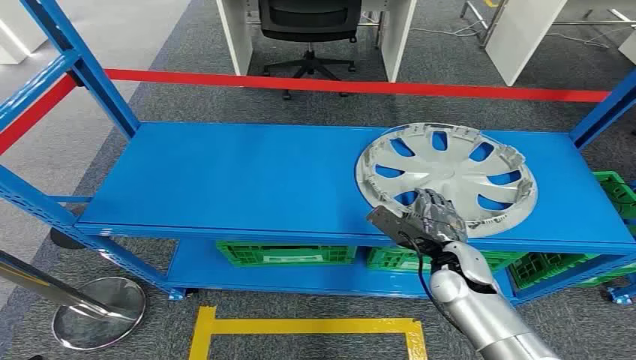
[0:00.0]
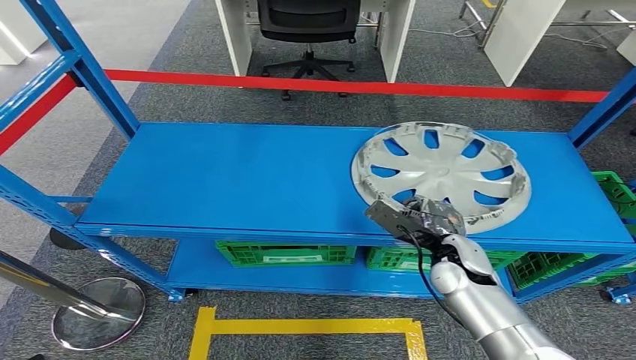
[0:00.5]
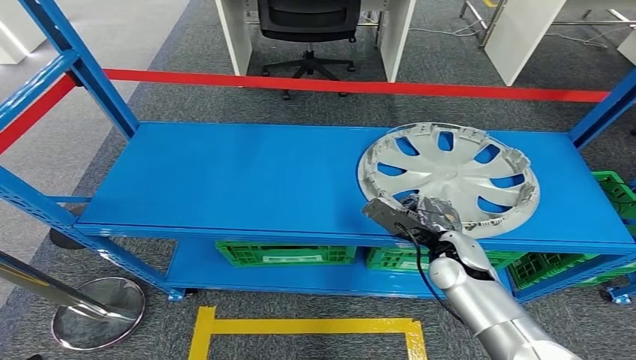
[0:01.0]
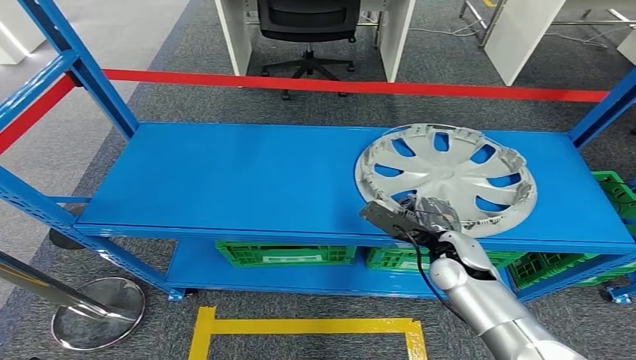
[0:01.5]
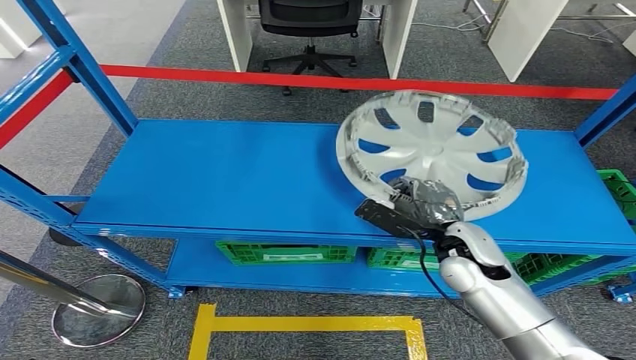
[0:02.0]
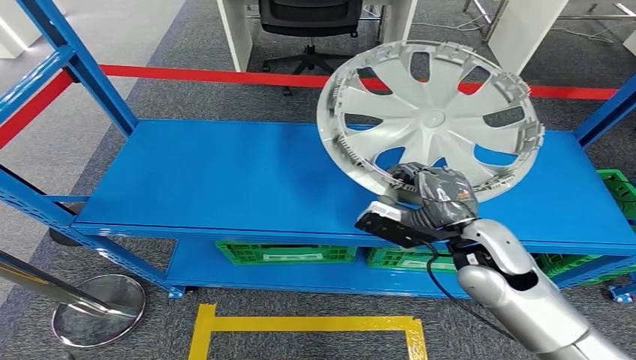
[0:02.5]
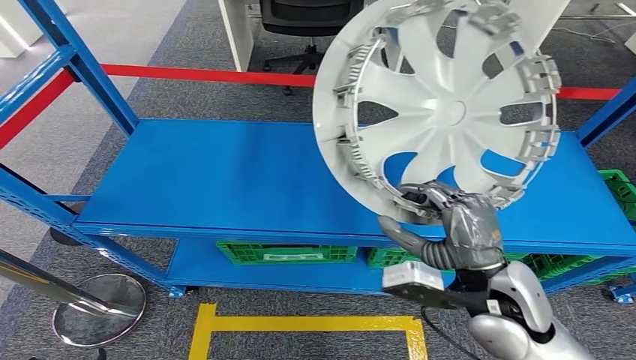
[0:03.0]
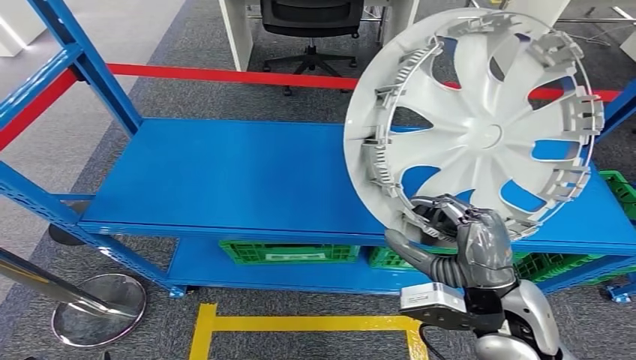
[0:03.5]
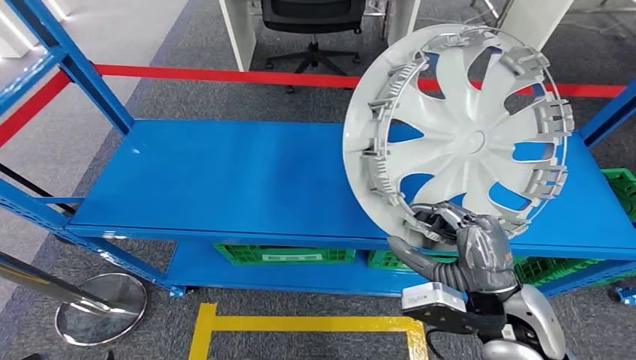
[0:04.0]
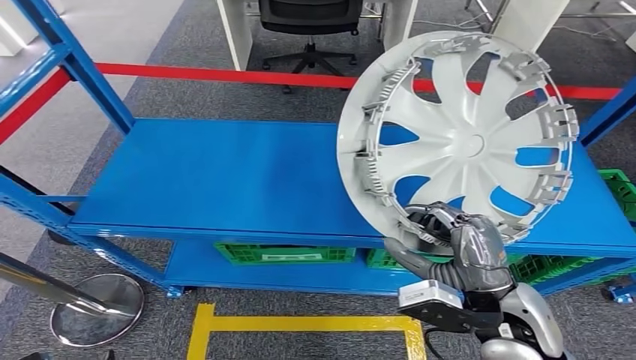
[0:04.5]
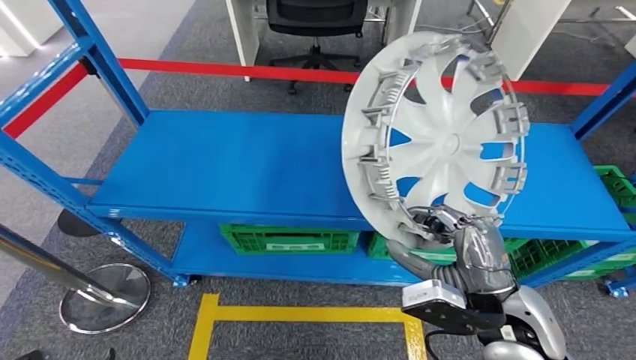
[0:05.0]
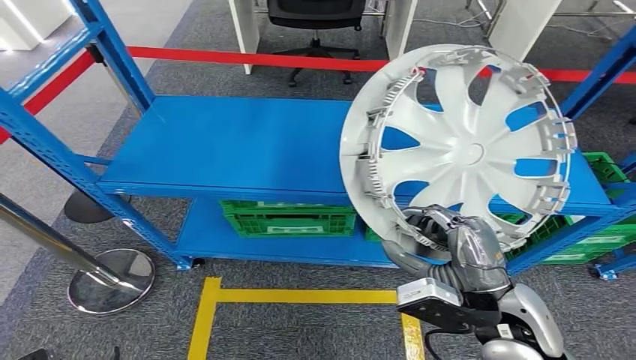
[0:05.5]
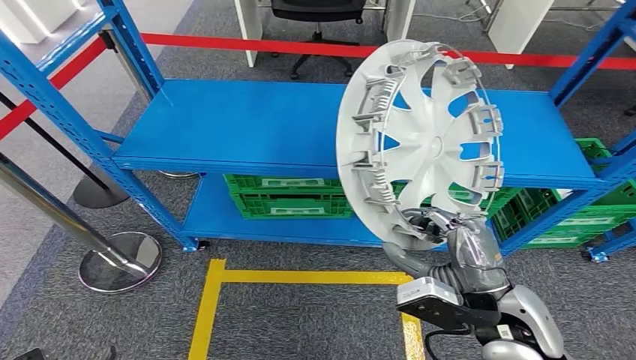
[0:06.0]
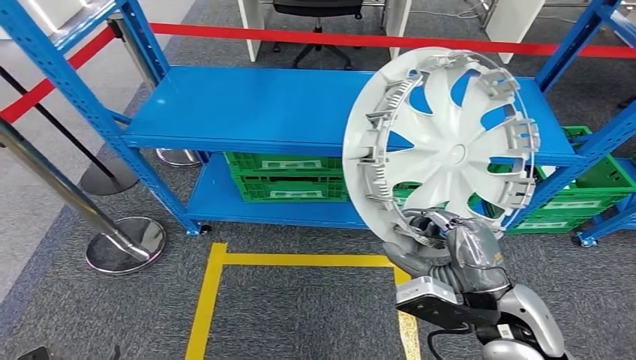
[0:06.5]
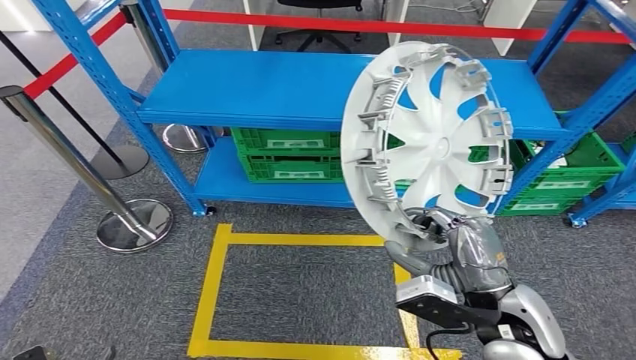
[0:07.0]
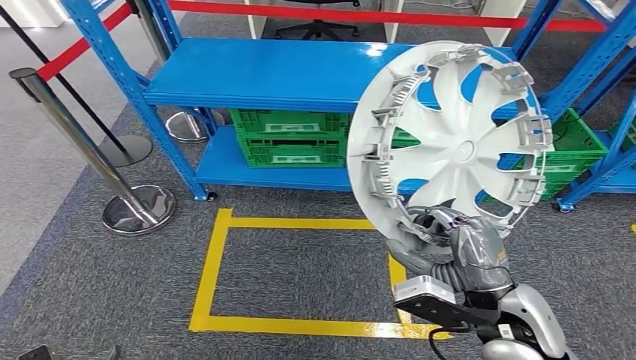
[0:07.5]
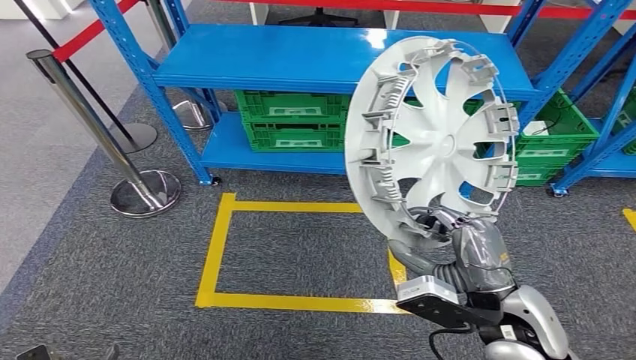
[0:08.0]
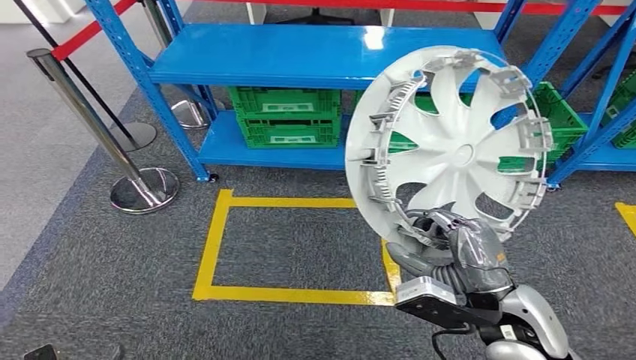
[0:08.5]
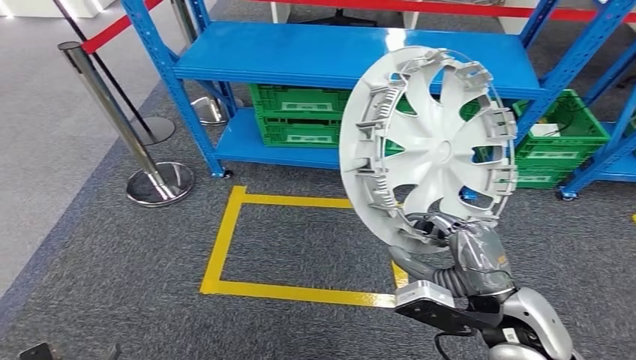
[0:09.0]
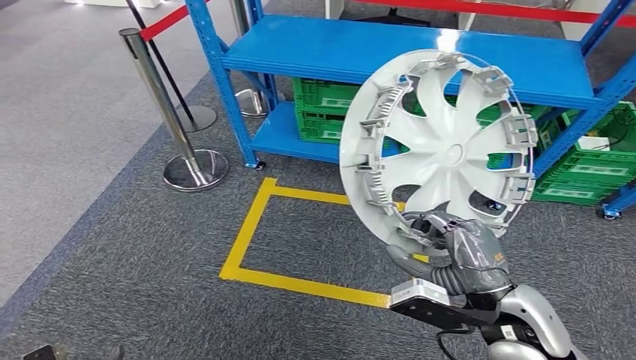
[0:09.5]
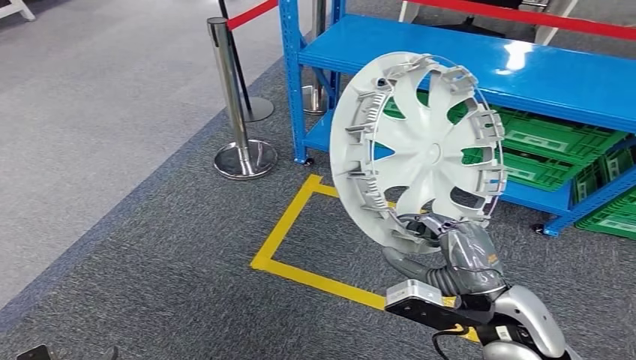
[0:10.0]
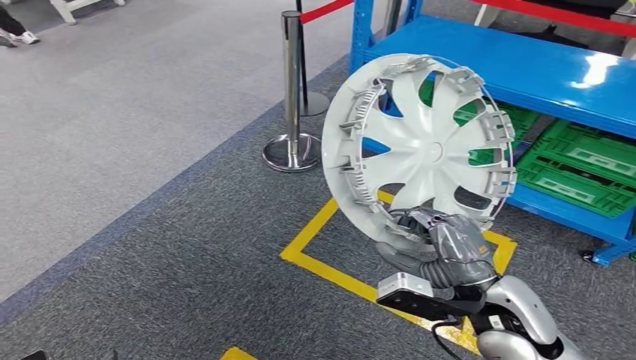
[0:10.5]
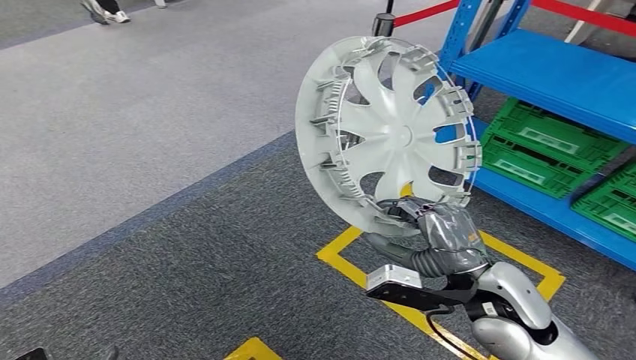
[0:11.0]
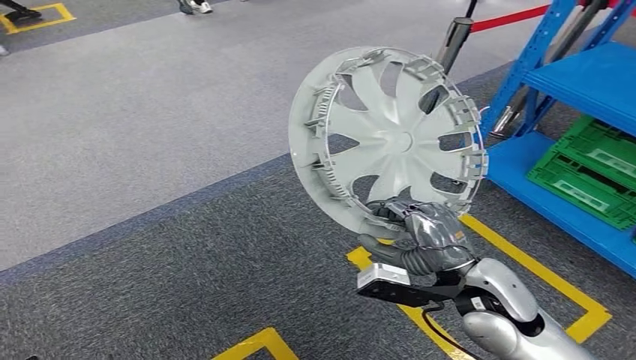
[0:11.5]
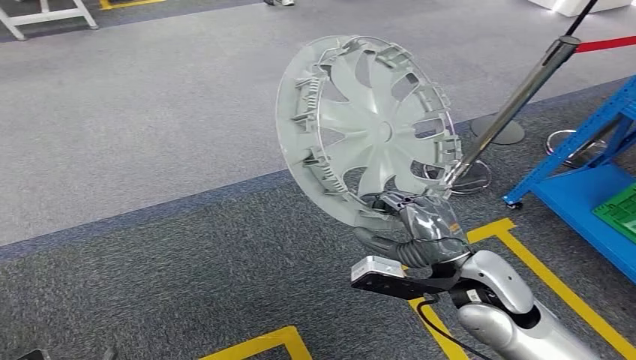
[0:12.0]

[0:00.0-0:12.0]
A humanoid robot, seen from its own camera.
Step, 0:00.0 to 0:03.0: Take small components from the rack.

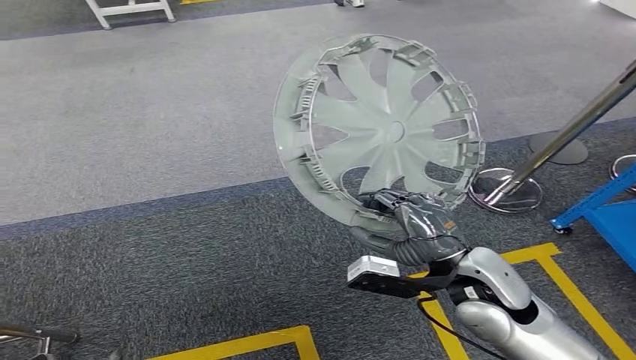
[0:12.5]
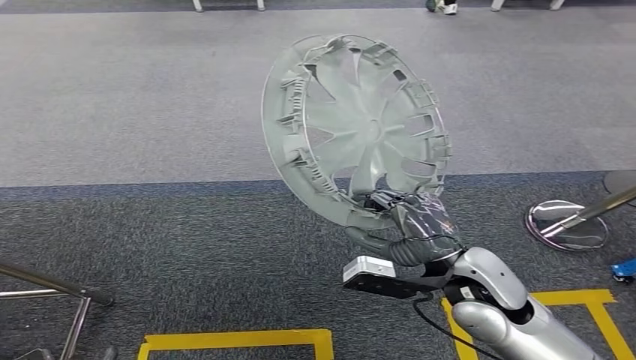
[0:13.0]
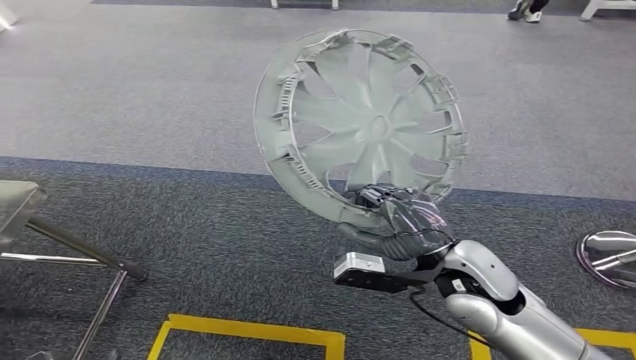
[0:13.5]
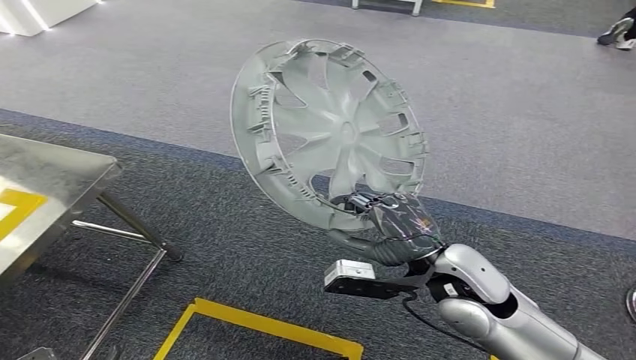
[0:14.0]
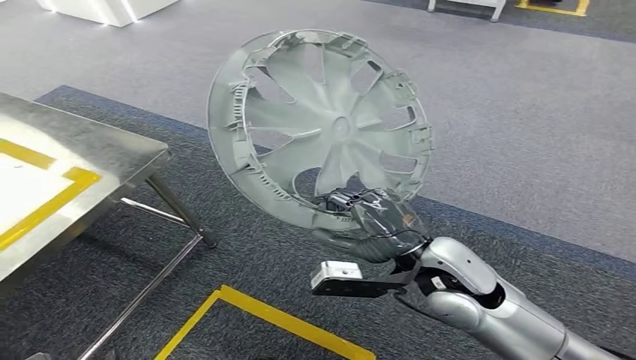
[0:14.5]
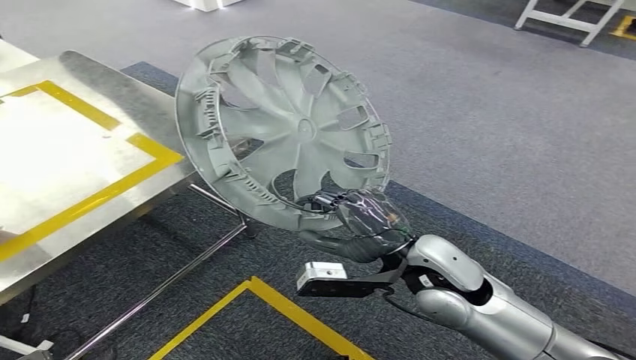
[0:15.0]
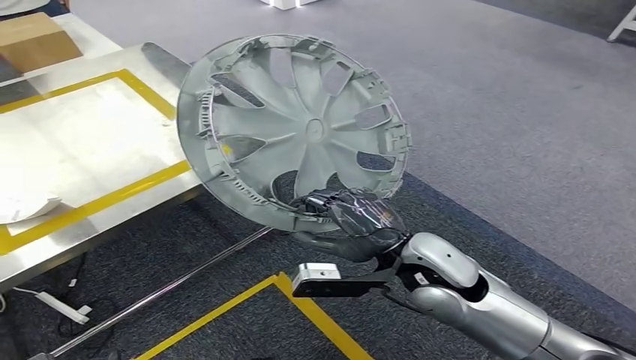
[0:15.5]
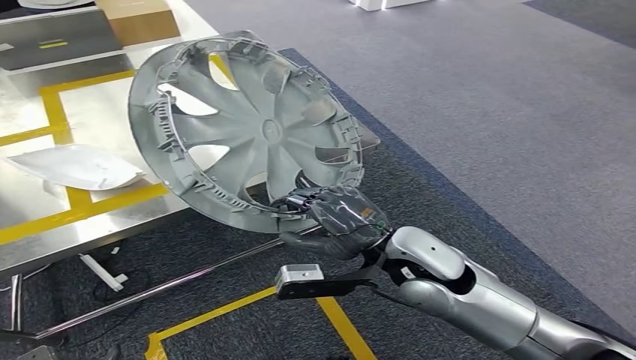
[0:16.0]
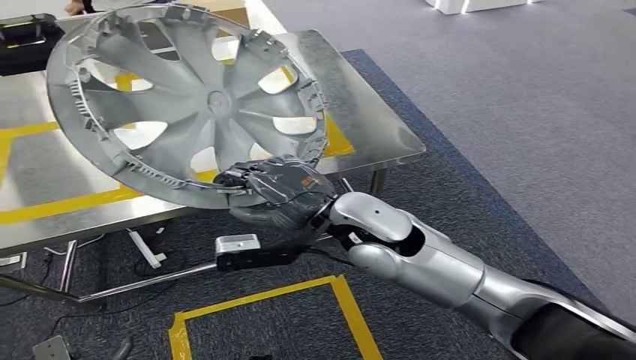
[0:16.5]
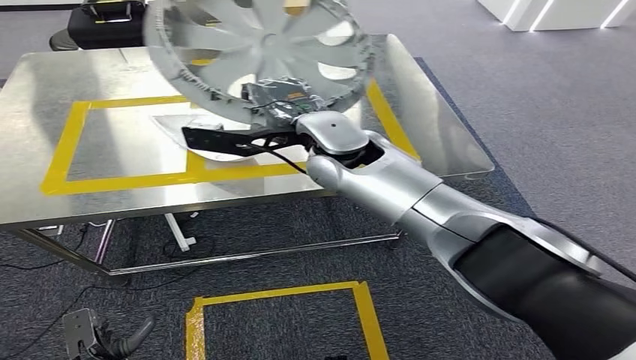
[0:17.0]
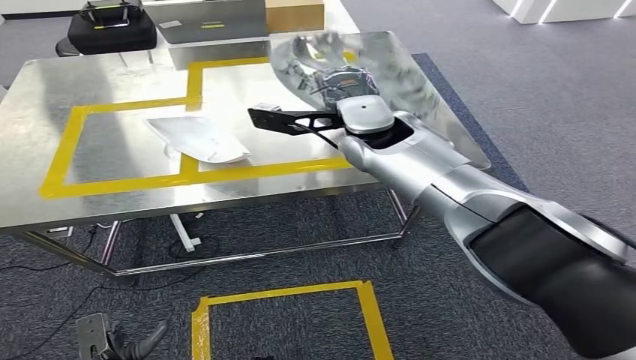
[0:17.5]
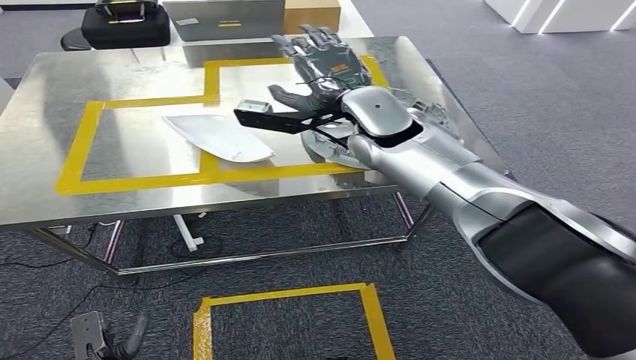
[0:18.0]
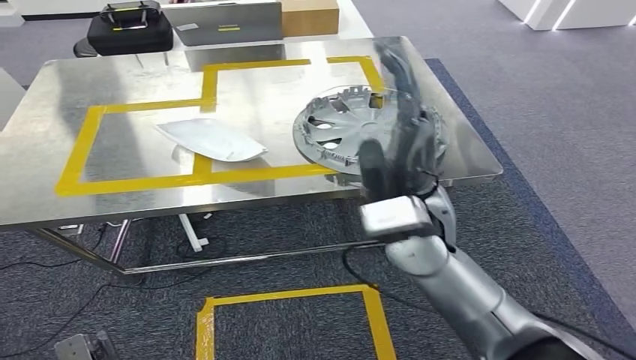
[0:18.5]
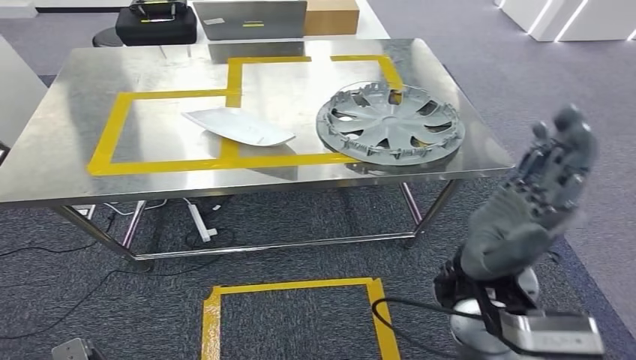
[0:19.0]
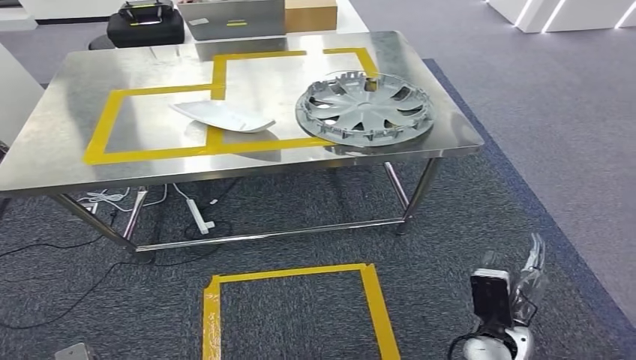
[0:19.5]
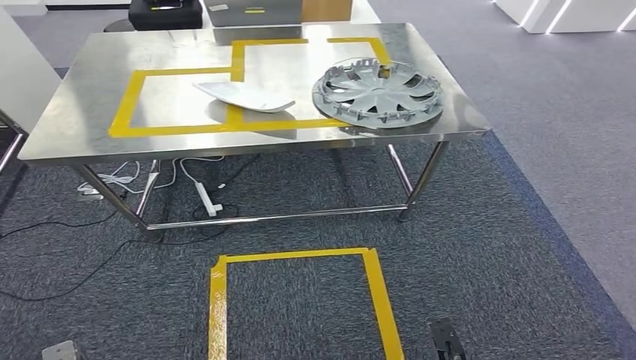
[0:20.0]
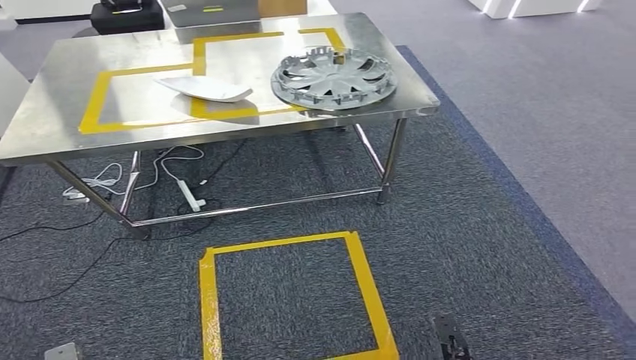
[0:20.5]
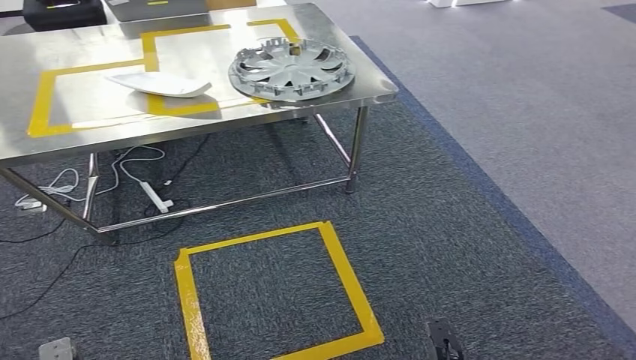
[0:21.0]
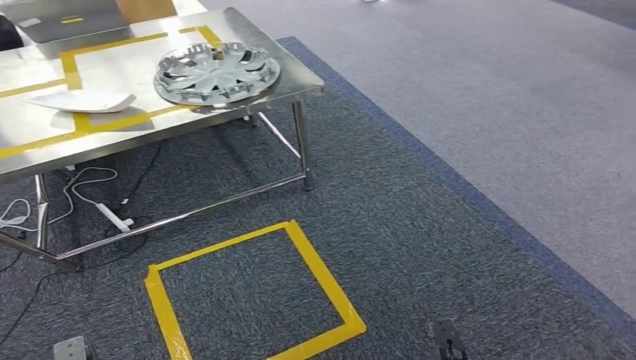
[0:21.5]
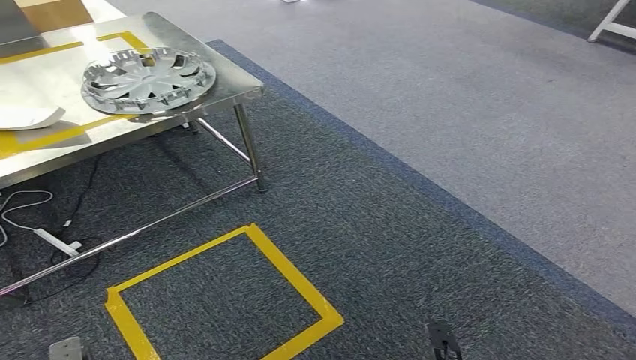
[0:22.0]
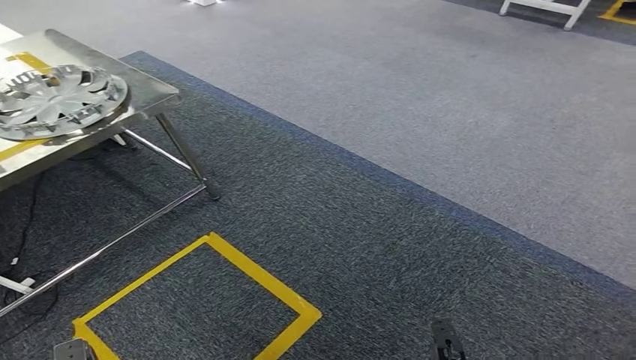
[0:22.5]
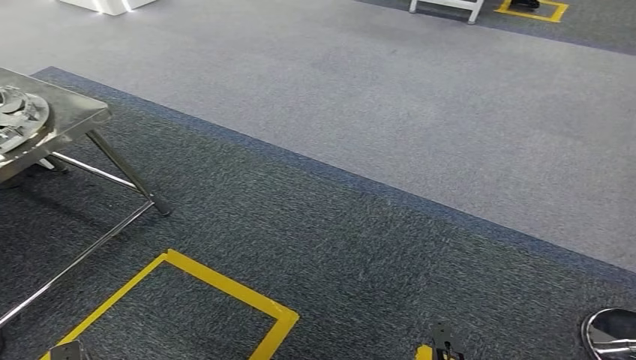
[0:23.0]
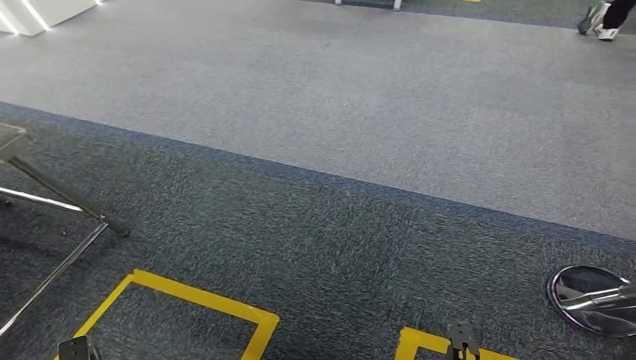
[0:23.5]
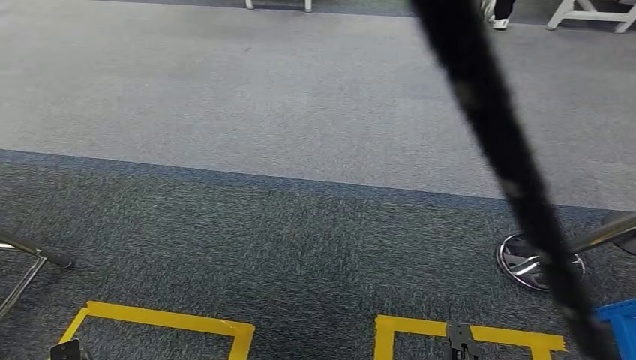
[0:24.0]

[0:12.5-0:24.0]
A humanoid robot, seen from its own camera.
Step, 0:12.5 to 0:16.0: Move the small parts to the workbench.
Step, 0:16.5 to 0:19.5: Insert the small parts into the corresponding holes on the workbench.
